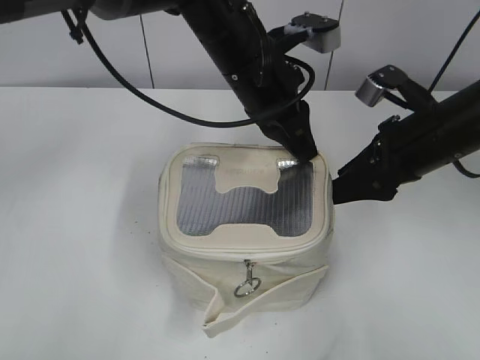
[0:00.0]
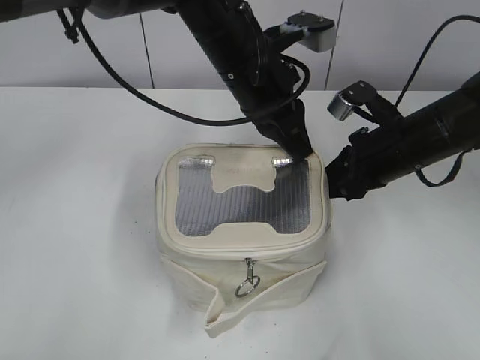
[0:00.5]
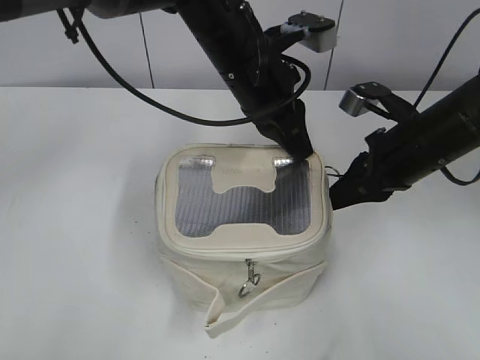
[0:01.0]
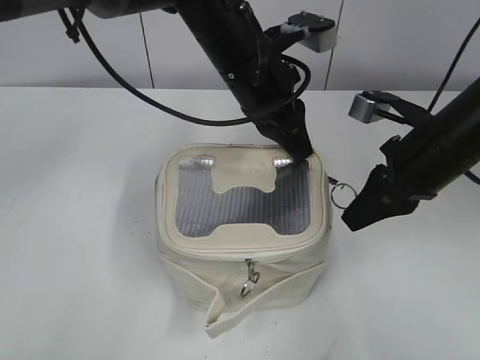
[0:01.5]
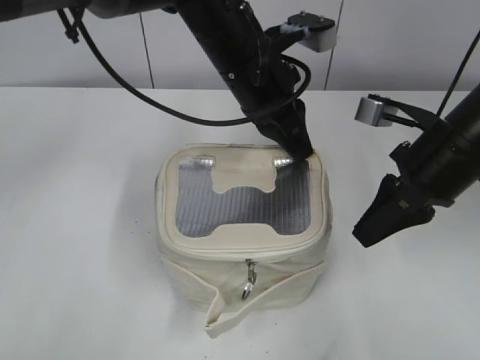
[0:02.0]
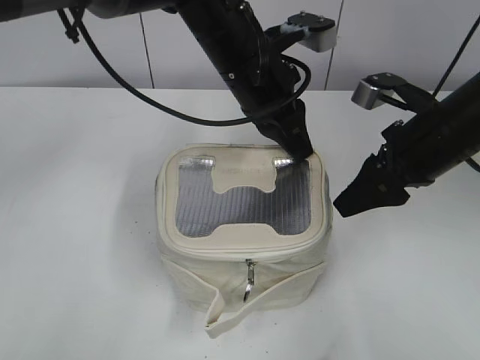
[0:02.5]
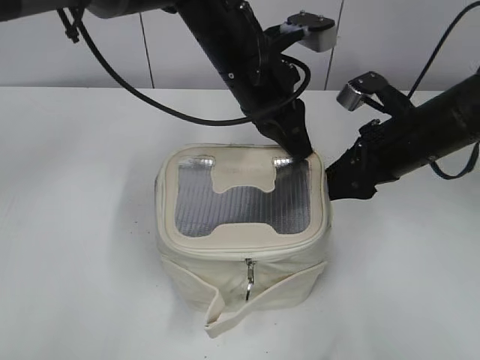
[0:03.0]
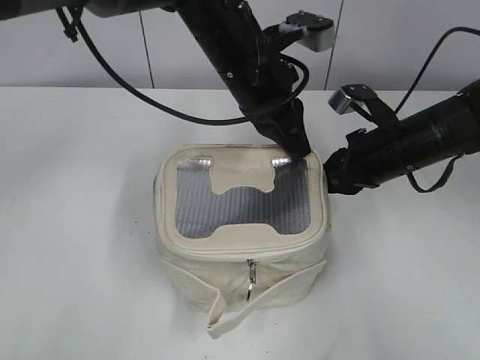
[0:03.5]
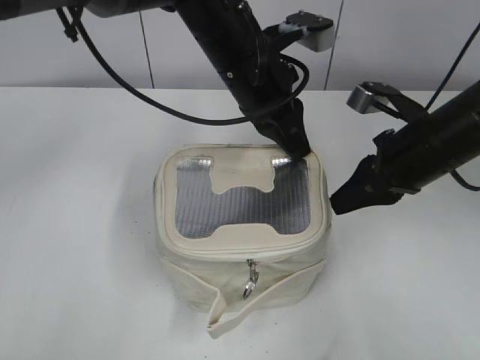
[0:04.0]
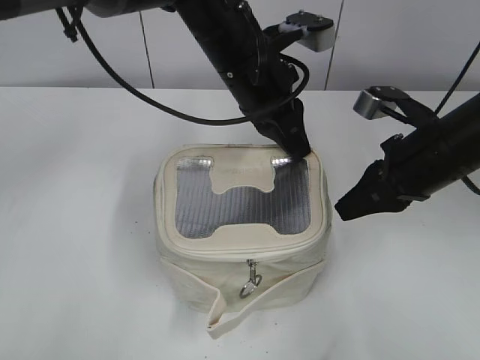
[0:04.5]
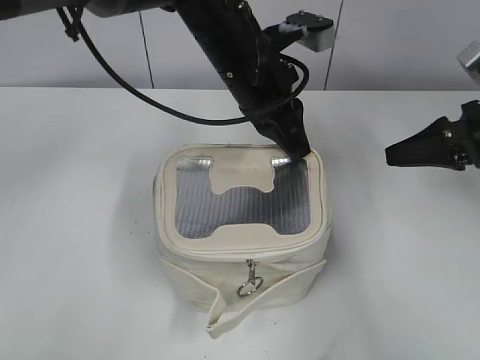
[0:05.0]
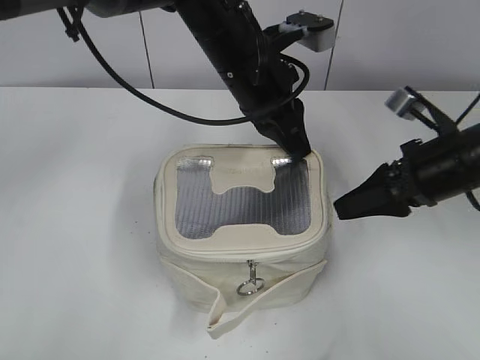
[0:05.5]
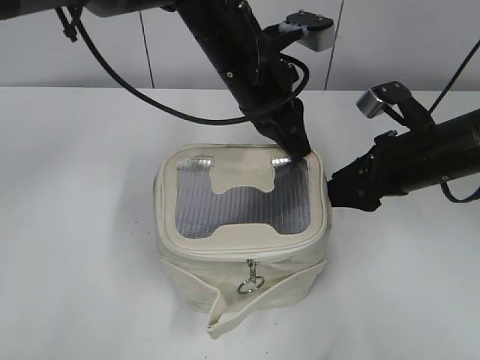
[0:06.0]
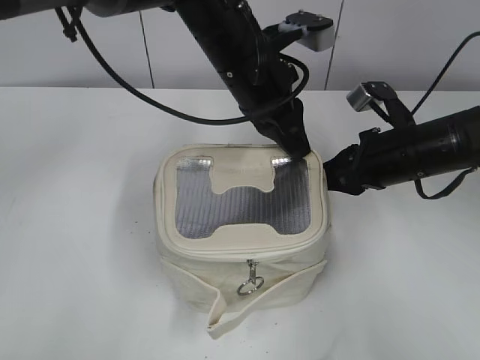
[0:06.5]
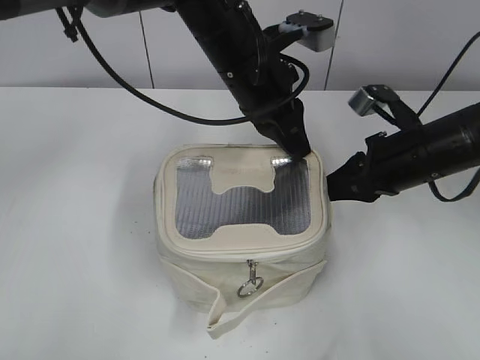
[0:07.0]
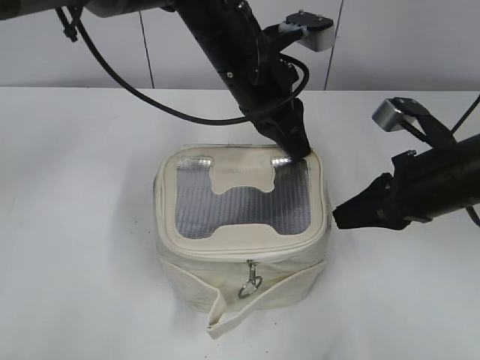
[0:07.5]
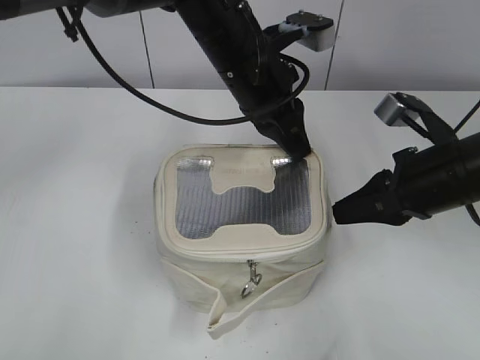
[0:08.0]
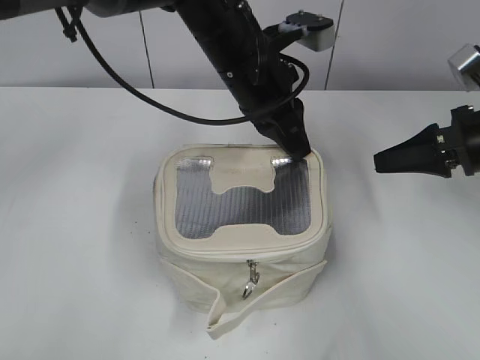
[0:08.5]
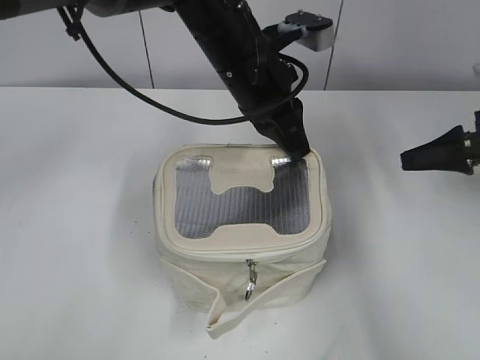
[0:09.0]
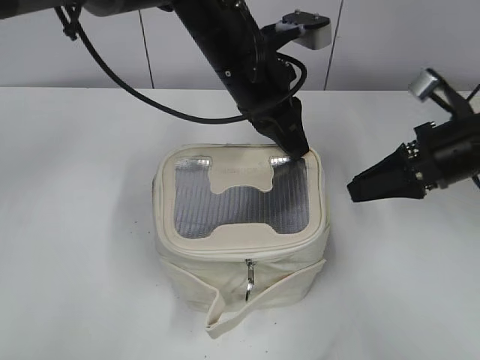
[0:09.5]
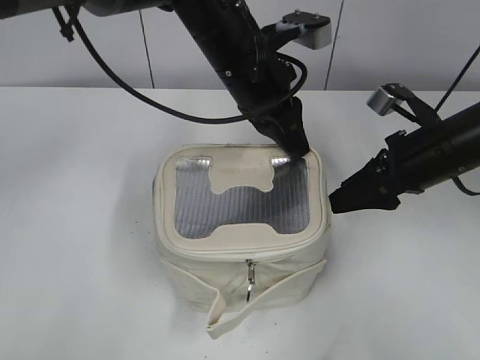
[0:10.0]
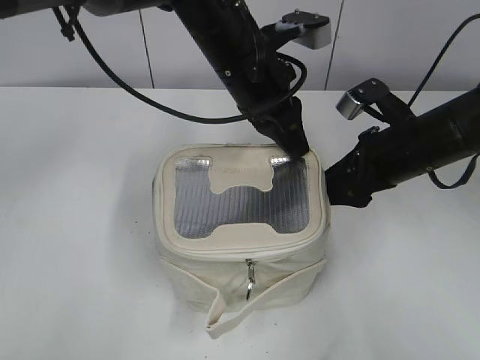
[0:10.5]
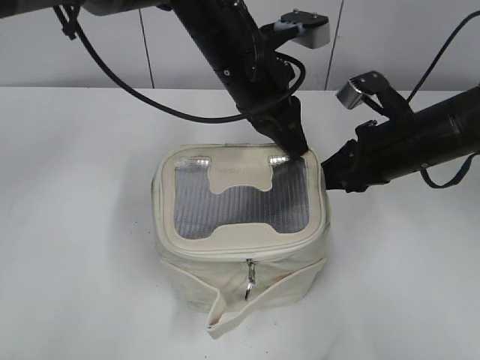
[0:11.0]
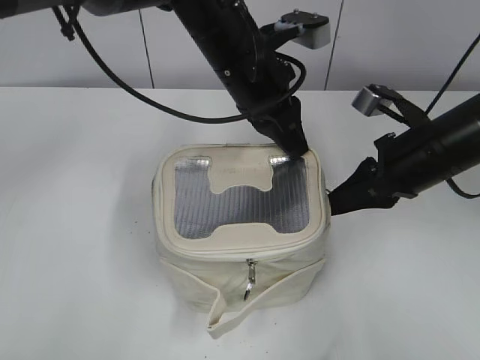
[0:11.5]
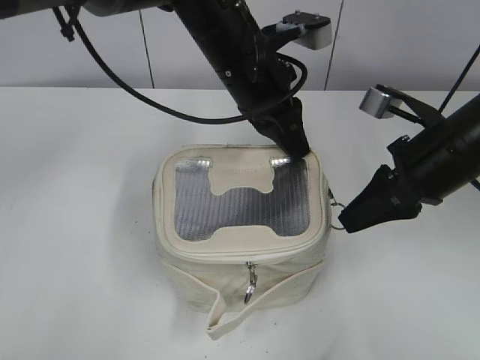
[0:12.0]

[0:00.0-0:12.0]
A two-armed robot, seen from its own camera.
0:00.0 to 0:02.0: The right gripper closes its fingers.
0:02.0 to 0:04.0: The right gripper opens and closes again.
0:04.0 to 0:06.0: The right gripper moves about 10 cm to the right and comes back, and opens.
0:06.0 to 0:08.0: The right gripper closes.
0:08.0 to 0:10.0: The right gripper travels to the right and back again, about 10 cm each way, and opens.
0:10.0 to 0:12.0: The right gripper shifts by about 5 cm, and closes up.

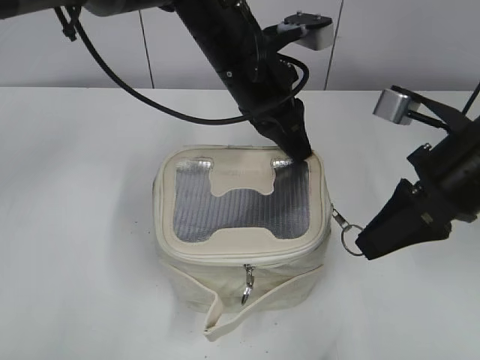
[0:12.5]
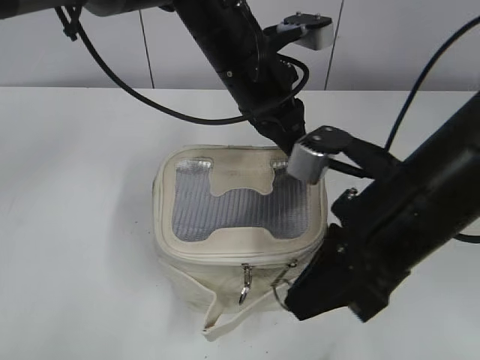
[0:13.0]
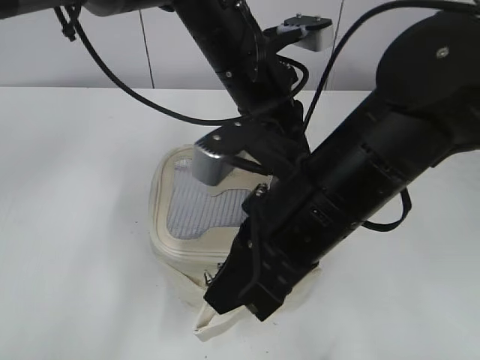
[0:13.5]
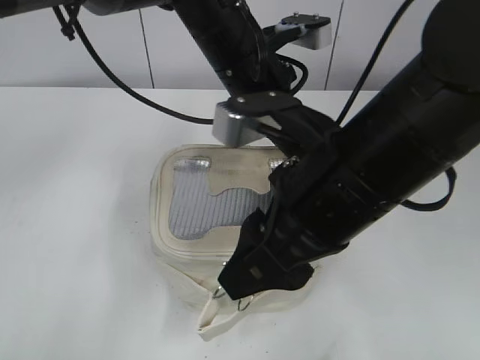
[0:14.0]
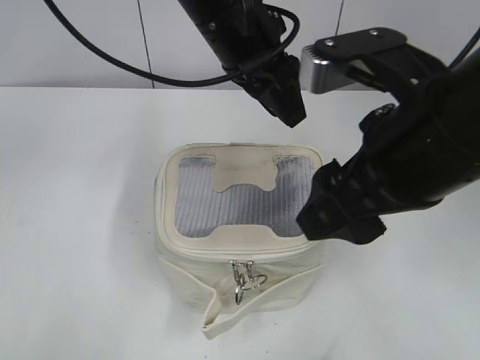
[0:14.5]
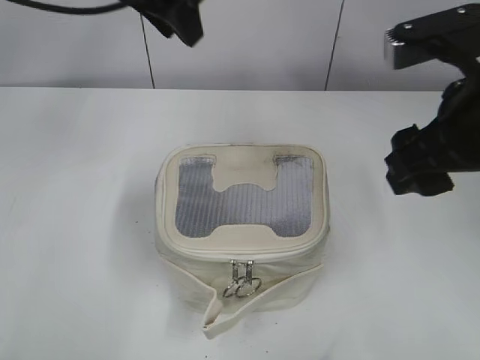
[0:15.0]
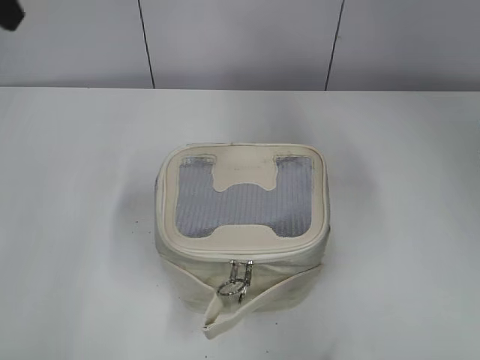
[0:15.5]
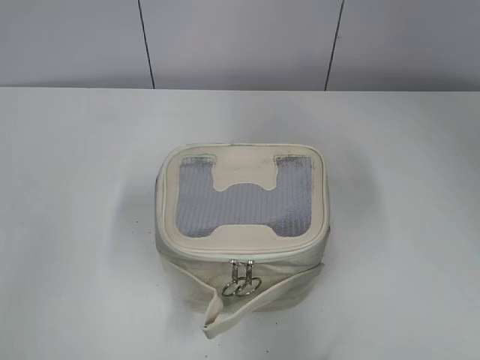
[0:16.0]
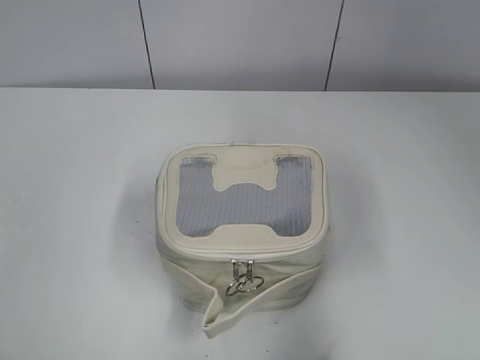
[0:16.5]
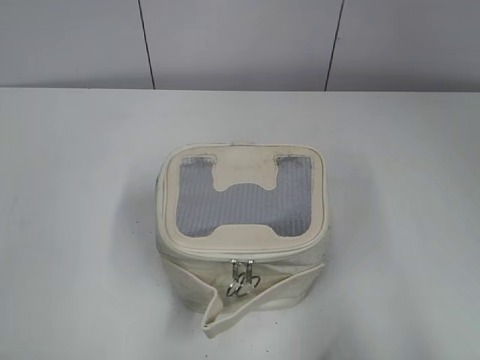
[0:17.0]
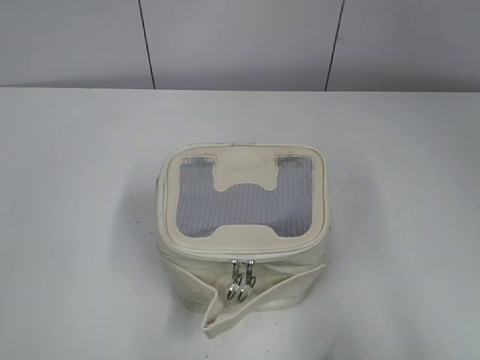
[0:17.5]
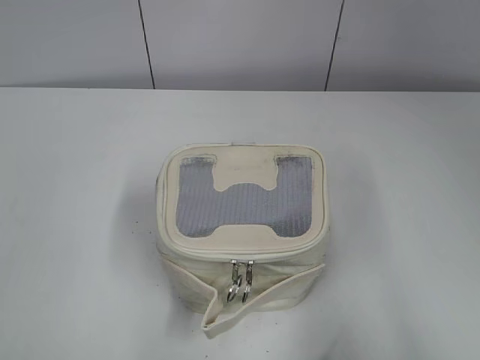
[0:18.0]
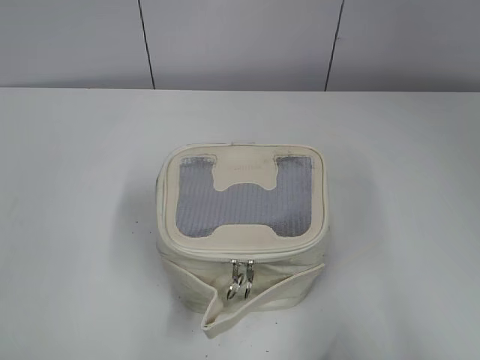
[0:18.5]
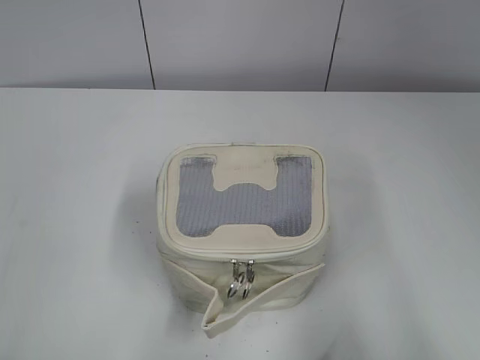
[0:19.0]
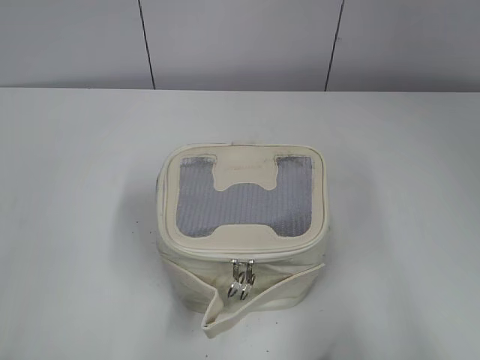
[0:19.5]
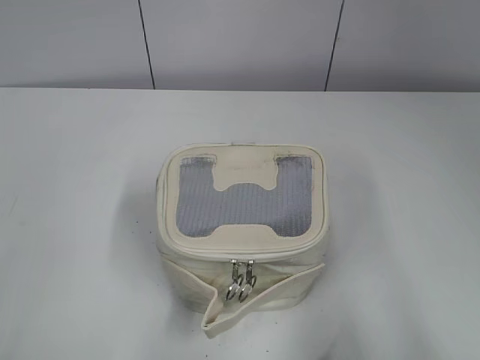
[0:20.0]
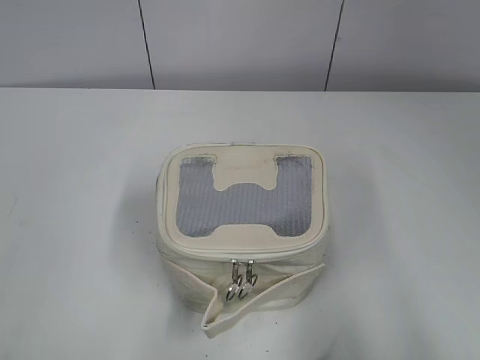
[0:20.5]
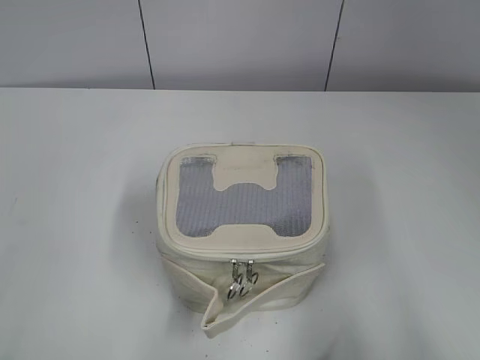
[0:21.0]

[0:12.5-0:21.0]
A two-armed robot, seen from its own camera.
0:12.5 to 0:14.5: The right gripper moves to the left, upward and backward, roughly 10 cm, and opens up, while the left gripper shifts roughly 5 cm upward, and opens its fingers.
0:14.5 to 0:16.5: The right gripper moves to the right and backward, roughly 20 cm. The left gripper shifts roughly 40 cm to the left and backward.
0:16.5 to 0:19.0: The left gripper changes place by some 5 cm. Meanwhile the right gripper travels backward and downward by approximately 10 cm.
0:19.0 to 0:21.0: Both grippers stay put.

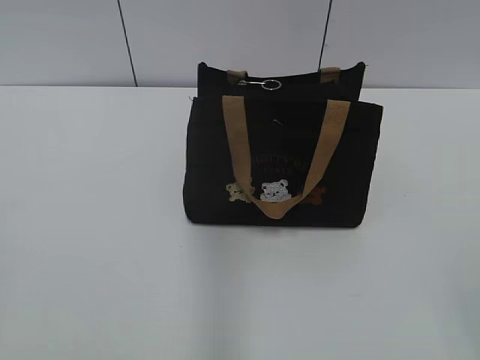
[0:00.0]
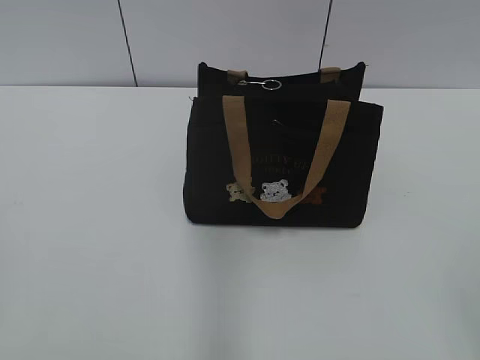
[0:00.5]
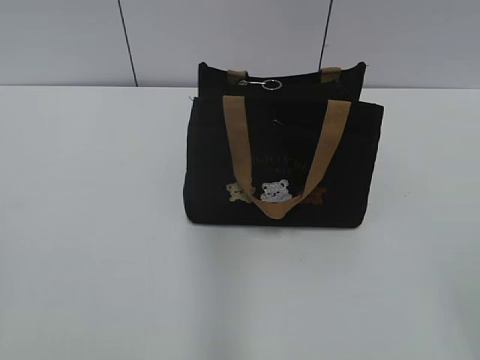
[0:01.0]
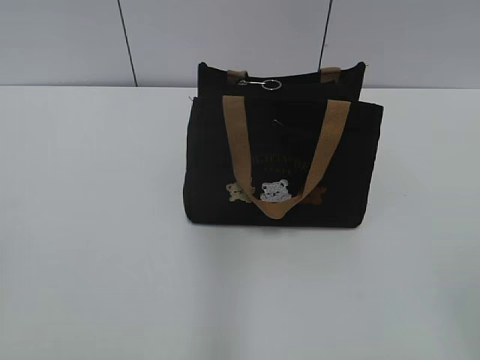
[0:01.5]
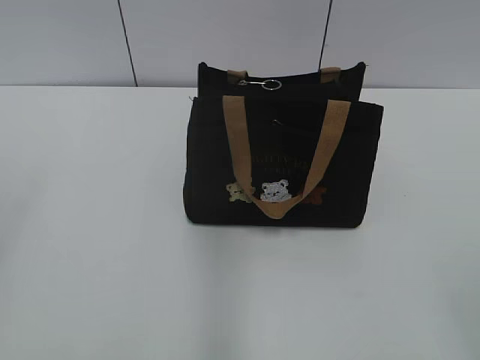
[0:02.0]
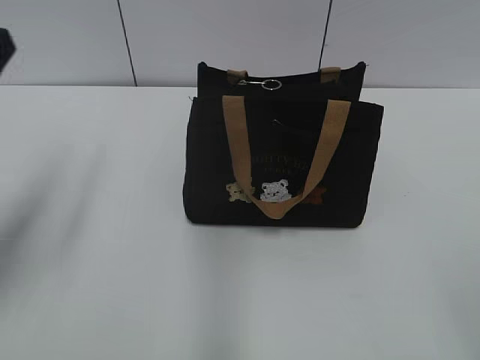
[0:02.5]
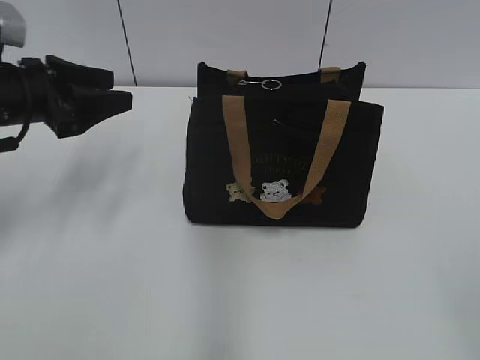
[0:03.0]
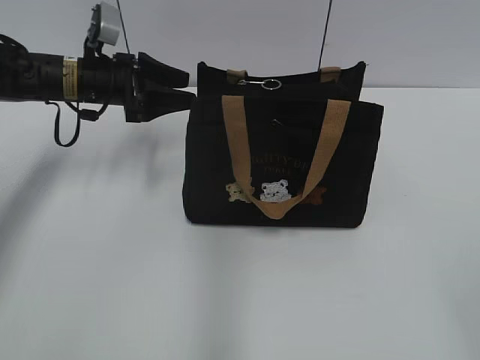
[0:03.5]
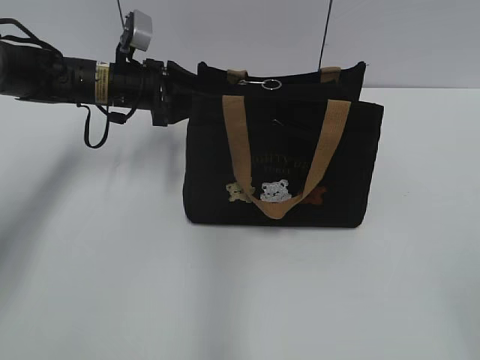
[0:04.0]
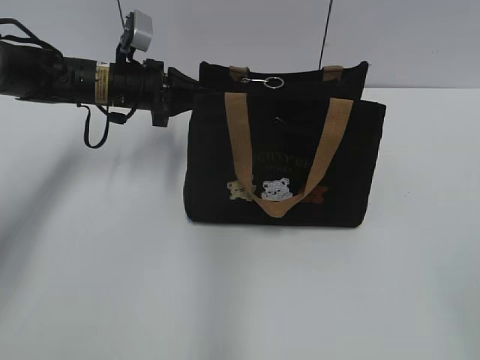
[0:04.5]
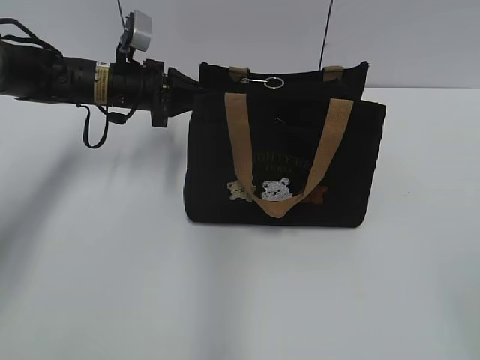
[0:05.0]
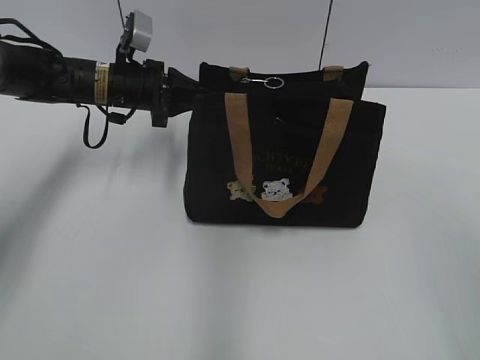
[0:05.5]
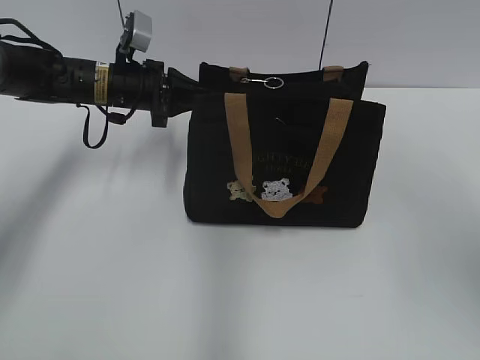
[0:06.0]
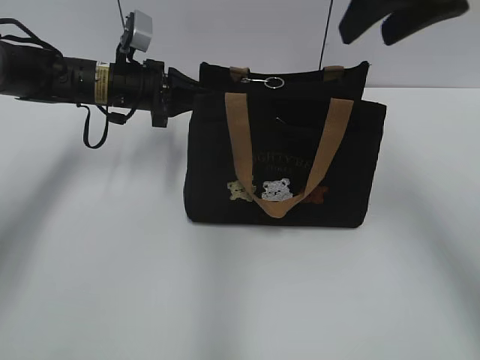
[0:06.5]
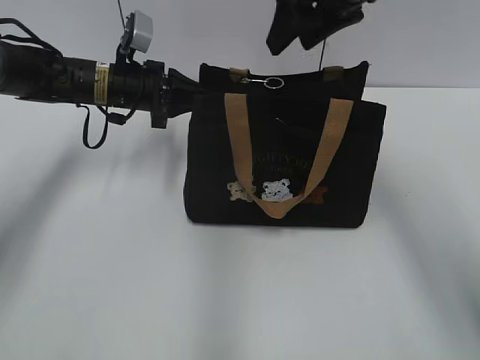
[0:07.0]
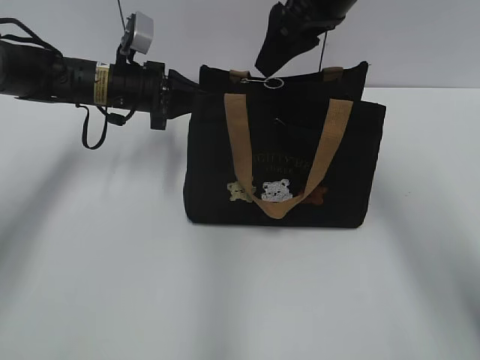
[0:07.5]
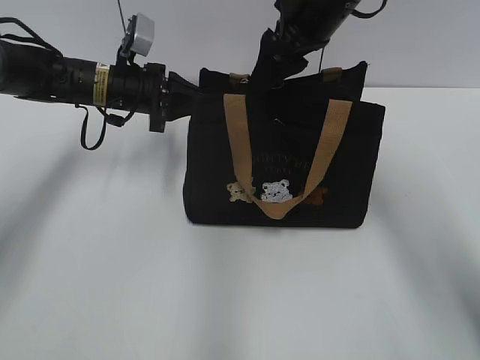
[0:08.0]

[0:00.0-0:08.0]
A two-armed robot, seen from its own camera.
0:02.0 to 0:04.0: The left gripper is displaced forward, downward and to the right by approximately 50 cm.
0:04.0 to 0:06.0: The right gripper is displaced forward and upward by approximately 20 cm. Meanwhile the left gripper closes its fingers.
0:06.0 to 0:08.0: The right gripper shifts about 30 cm forward and to the left.
